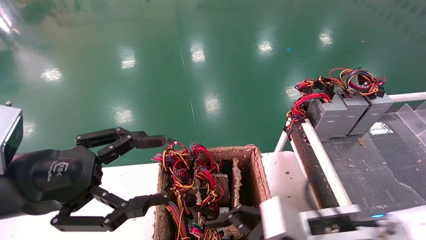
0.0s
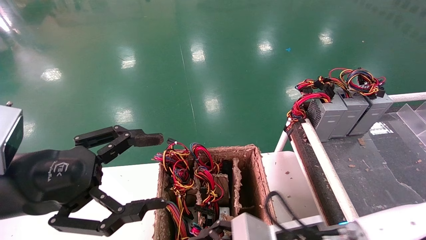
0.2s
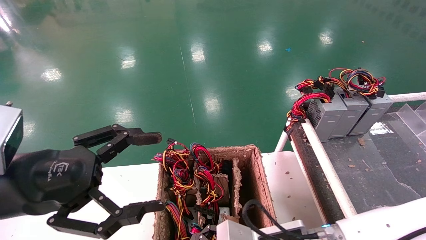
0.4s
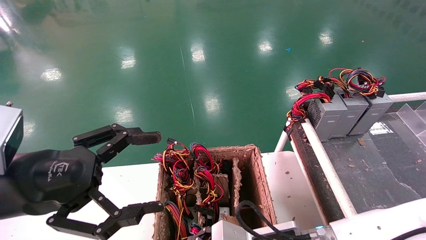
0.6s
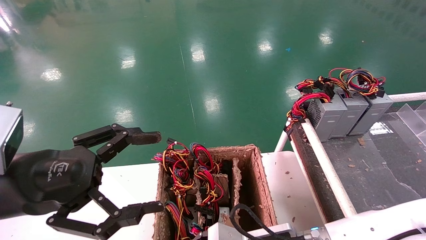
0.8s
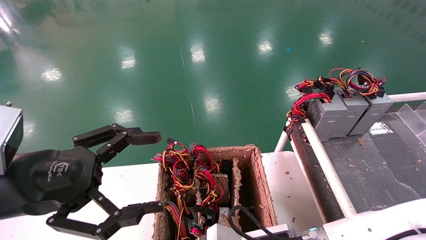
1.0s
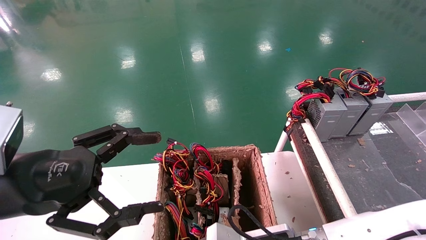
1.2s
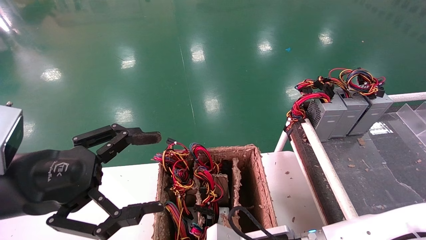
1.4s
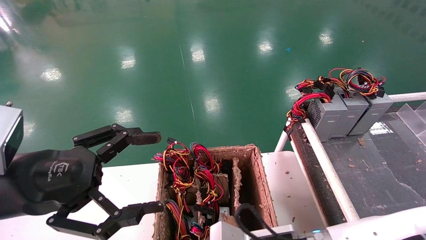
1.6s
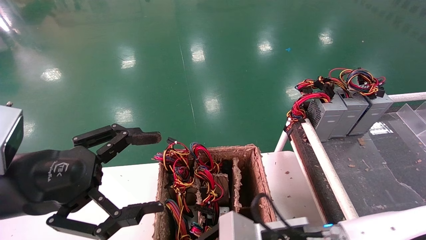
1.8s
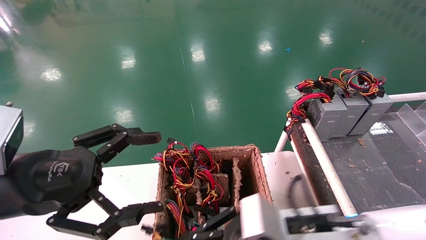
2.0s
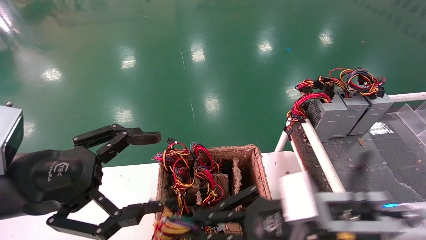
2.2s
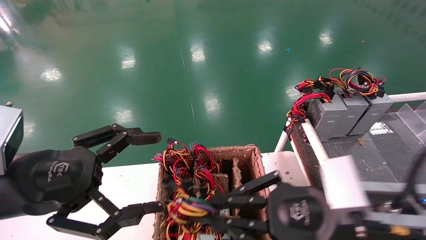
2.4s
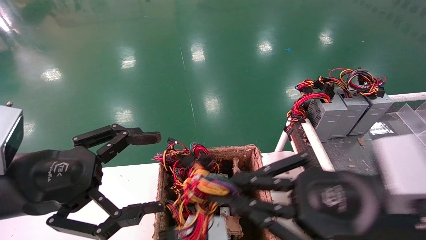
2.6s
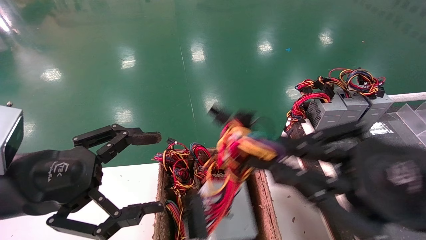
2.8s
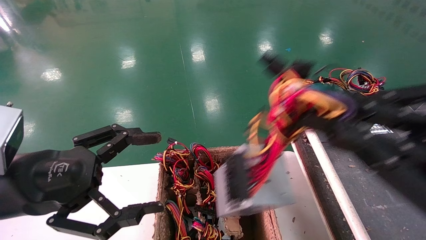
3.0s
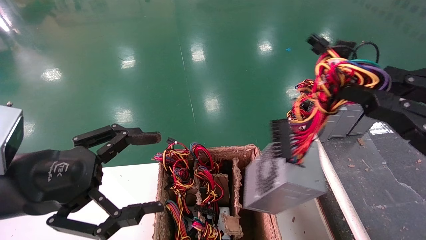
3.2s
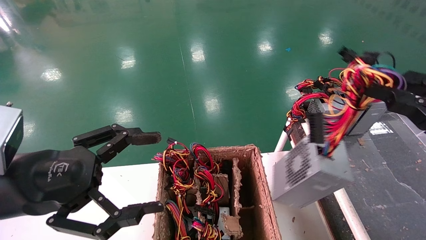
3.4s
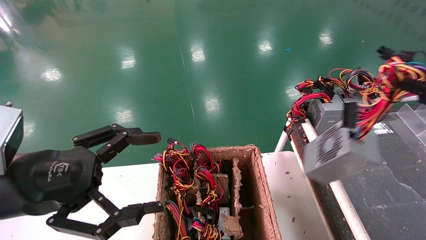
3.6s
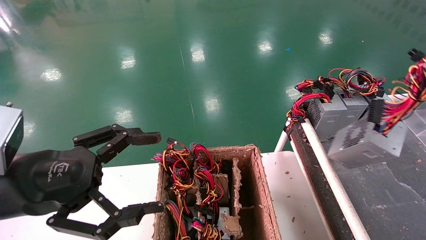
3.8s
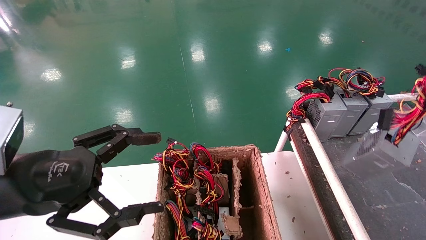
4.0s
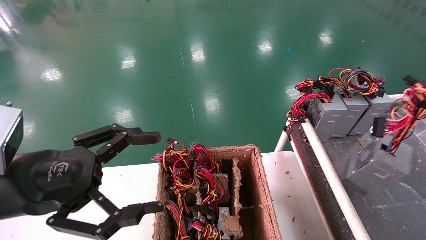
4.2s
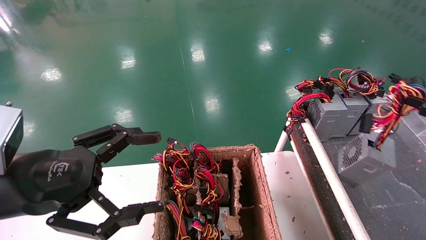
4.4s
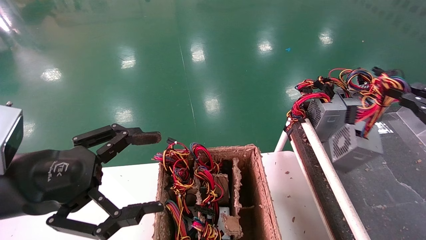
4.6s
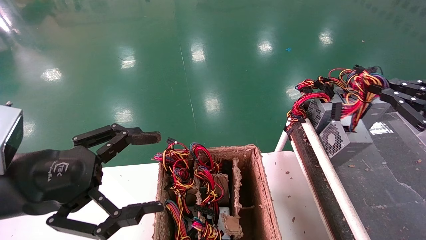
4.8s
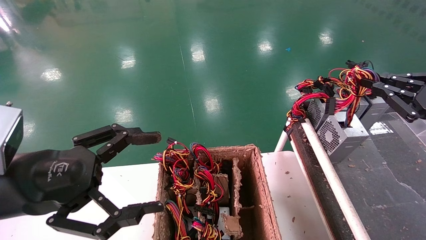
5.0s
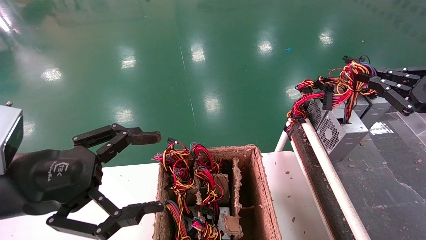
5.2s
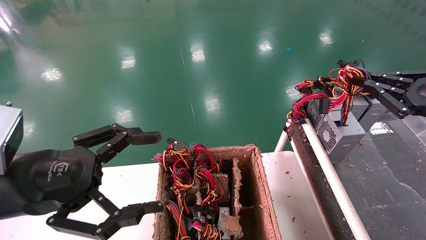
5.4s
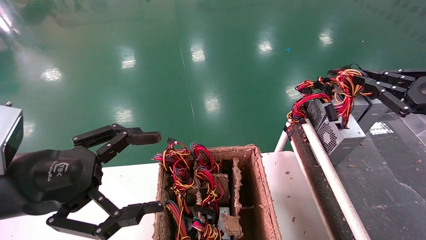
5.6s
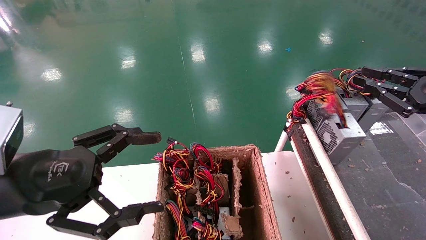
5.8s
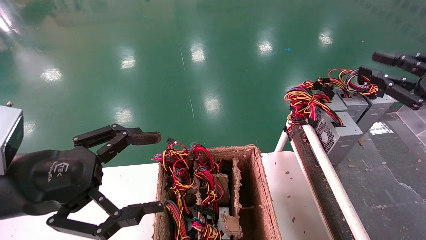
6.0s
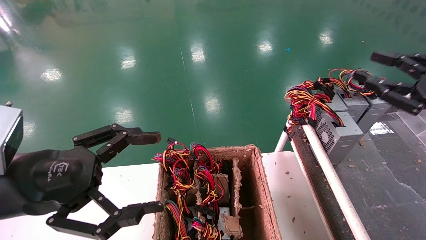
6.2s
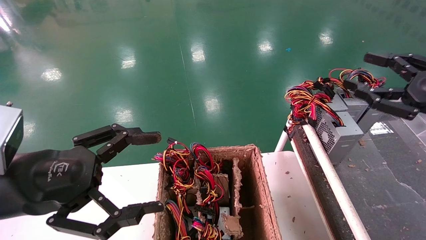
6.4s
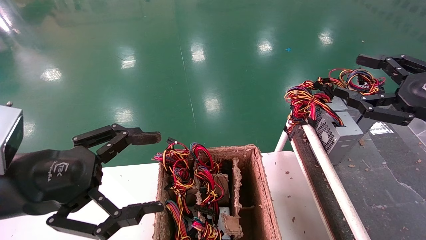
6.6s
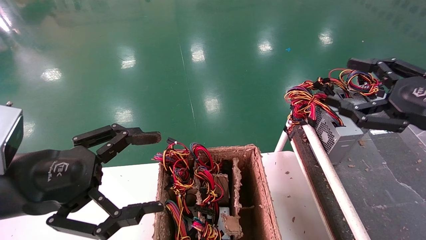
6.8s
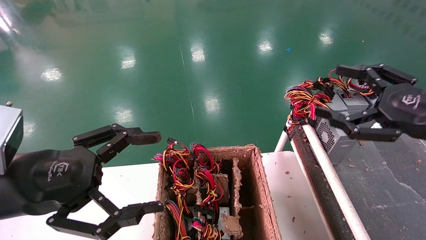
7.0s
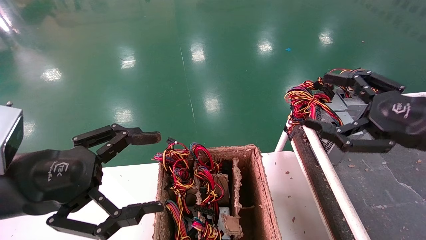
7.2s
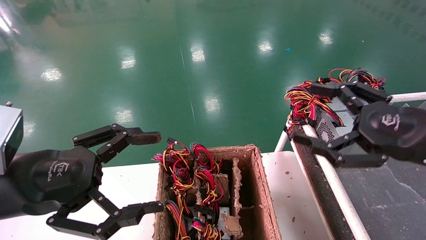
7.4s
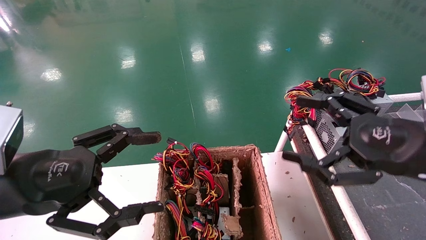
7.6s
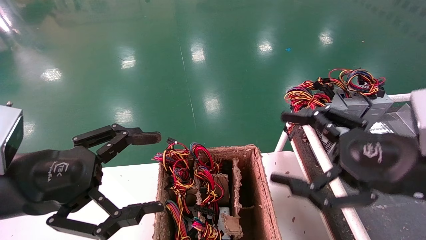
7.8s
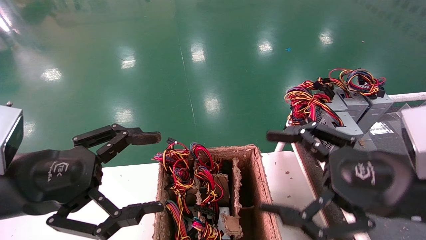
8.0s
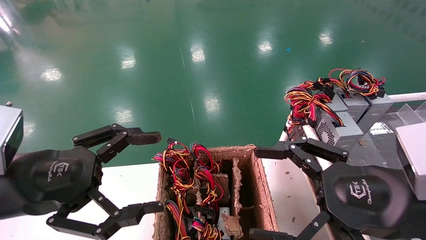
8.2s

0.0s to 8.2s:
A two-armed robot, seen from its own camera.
Step, 0.0s to 2.0s: Grab and lift the power supply from the large box.
Step, 2.2s to 6.2s: Place the power supply on the operating table.
0.0s to 1.6s: The left gripper opens up; the right gripper moves to the left, approximately 5 cm, and closes its fingers.
1.6s to 3.2s: The right gripper is displaced to the right, upward and backward by about 30 cm.
3.2s to 5.0s: The right gripper goes approximately 15 cm forward and to the right.
5.0s to 6.6s: The right gripper opens.
6.6s to 8.2s: The right gripper moves to the left and backward, roughly 15 cm.
